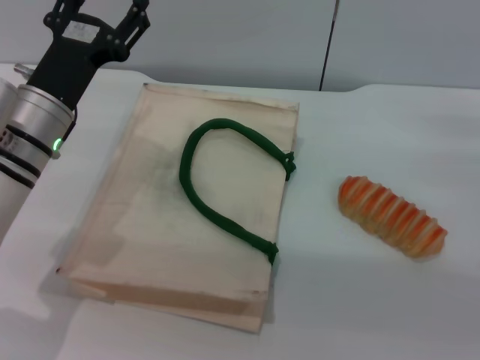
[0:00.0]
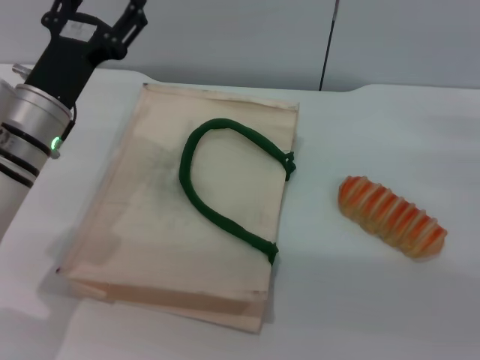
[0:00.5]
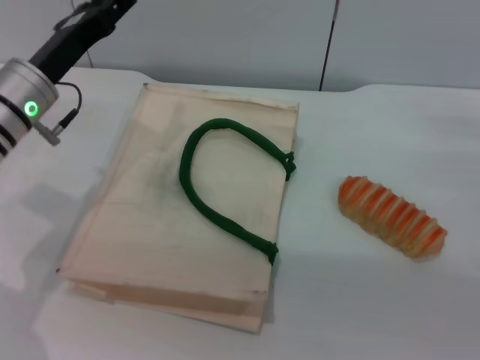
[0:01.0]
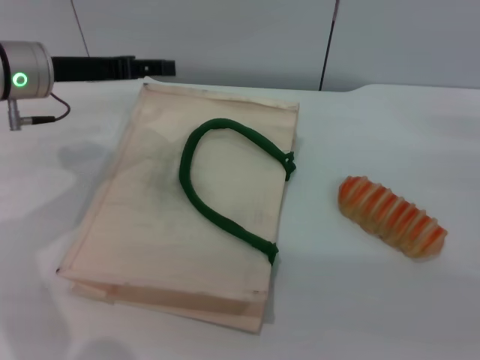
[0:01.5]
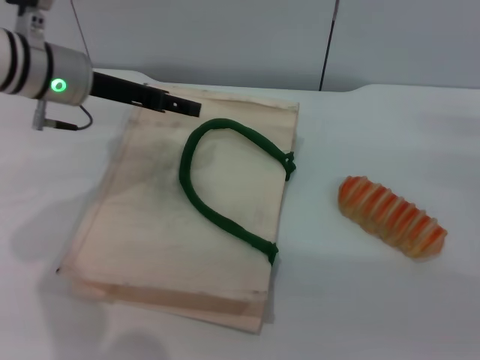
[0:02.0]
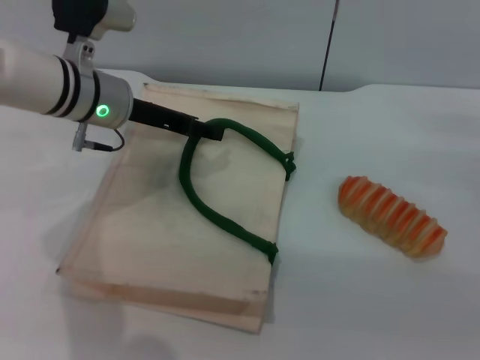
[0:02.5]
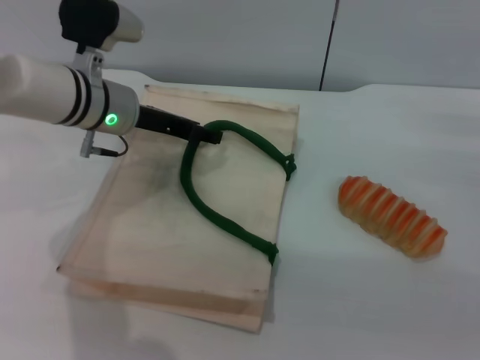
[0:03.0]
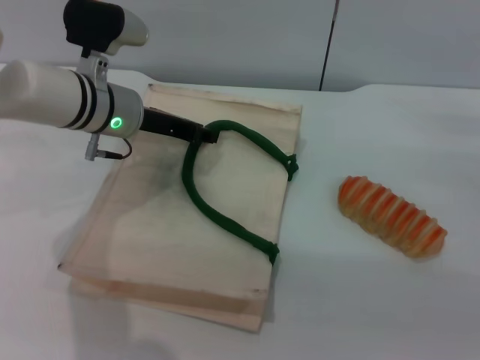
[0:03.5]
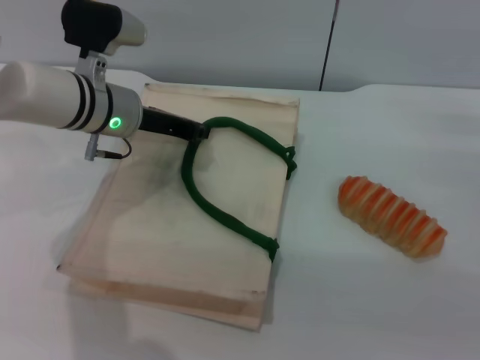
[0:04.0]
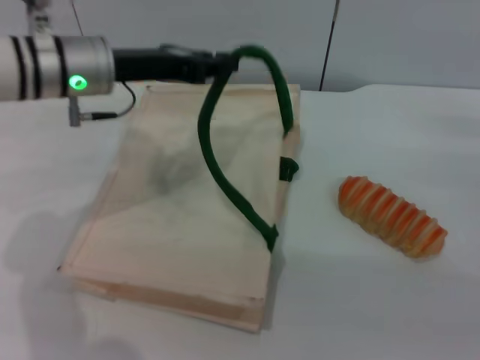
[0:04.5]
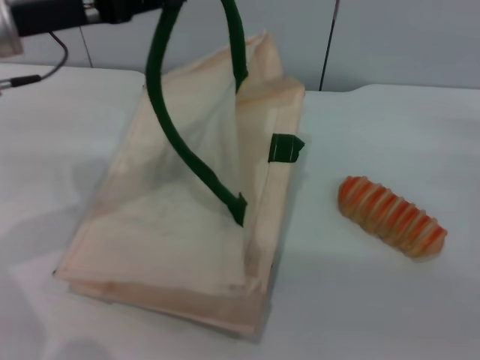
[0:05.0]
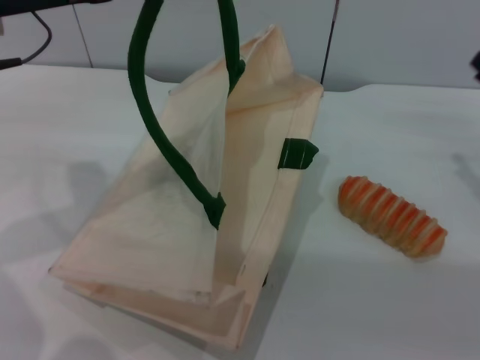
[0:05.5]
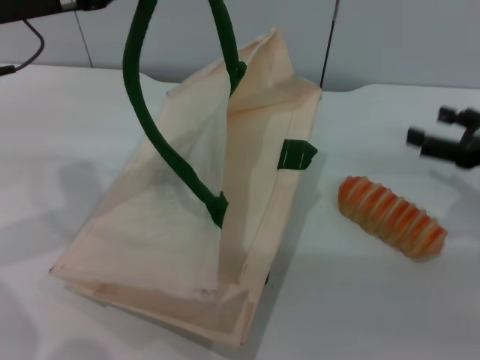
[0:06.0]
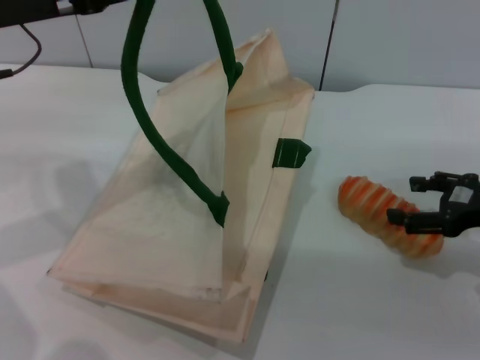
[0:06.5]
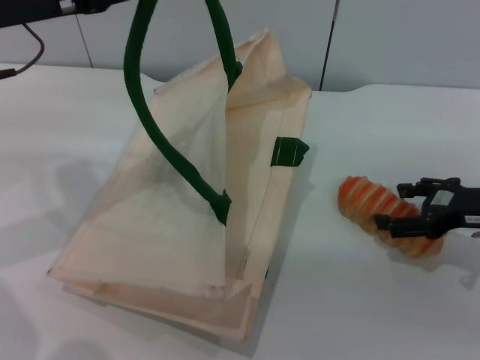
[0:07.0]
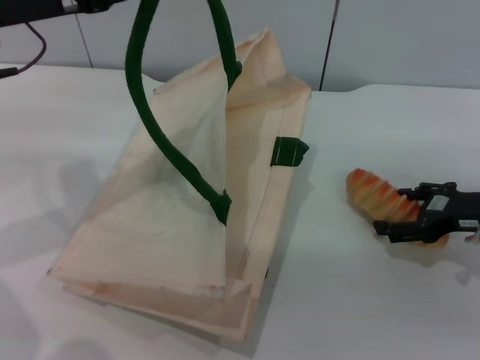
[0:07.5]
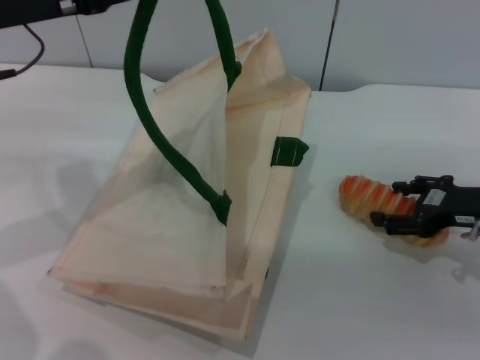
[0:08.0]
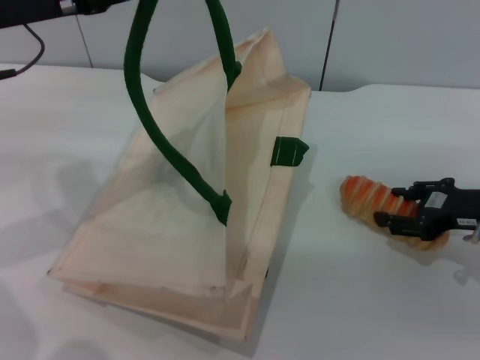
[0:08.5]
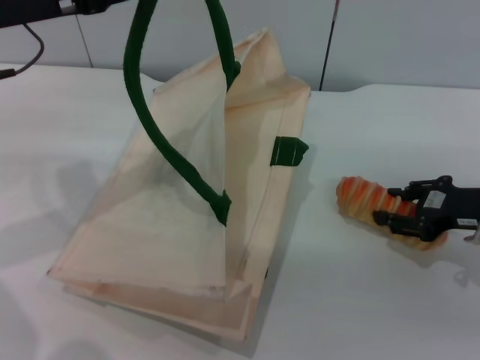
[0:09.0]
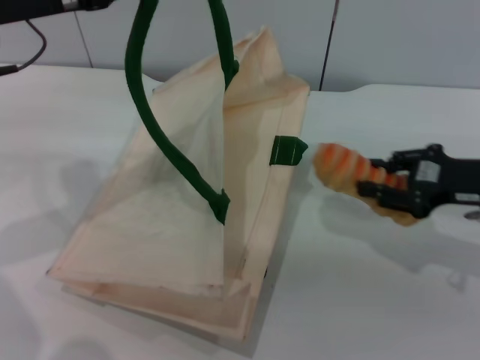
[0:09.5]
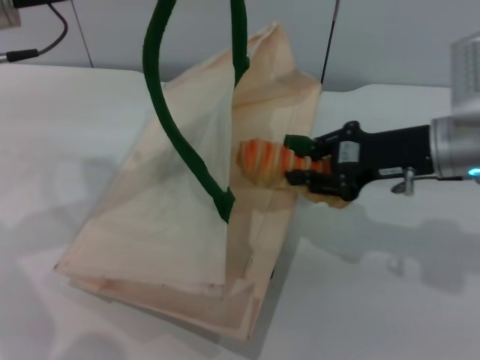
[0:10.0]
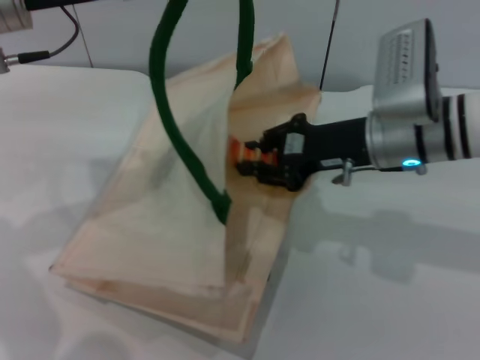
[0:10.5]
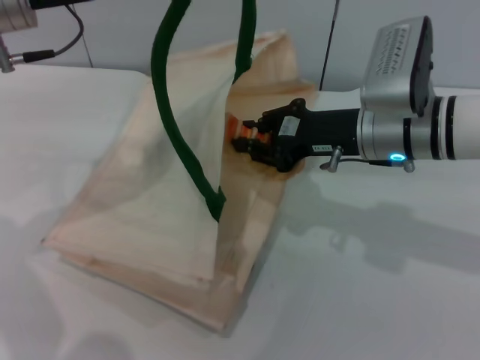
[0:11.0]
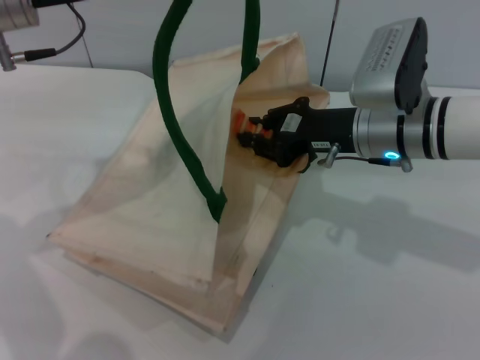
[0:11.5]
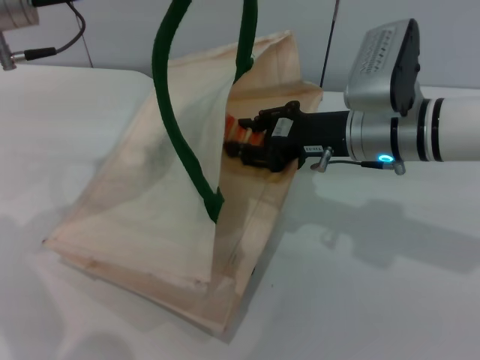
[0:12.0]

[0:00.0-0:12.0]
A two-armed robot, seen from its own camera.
Task of the whole recording: pick up the bread from the table and place it in the white handbag.
Step, 0:00.0 to 0:05.0: Lift the woven bag with the left gripper to open it.
Step, 0:05.5 to 0:09.0: Pick up the bread with the right gripper.
0:00.0 to 0:02.0: The left gripper goes some 10 cm forward and upward.
0:02.0 to 0:04.0: The left gripper moves approximately 5 cm, and closes up.
0:04.0 to 0:06.0: The left gripper moves upward, to the left and backward, about 15 cm.
0:08.0 to 0:10.0: The right gripper shifts some 10 cm to the left and upward, and closes.
0:10.0 to 0:12.0: The right gripper shifts some 5 cm to the left.

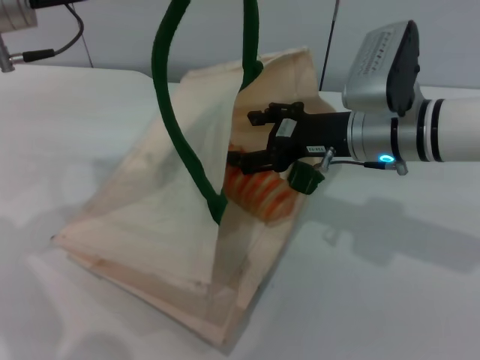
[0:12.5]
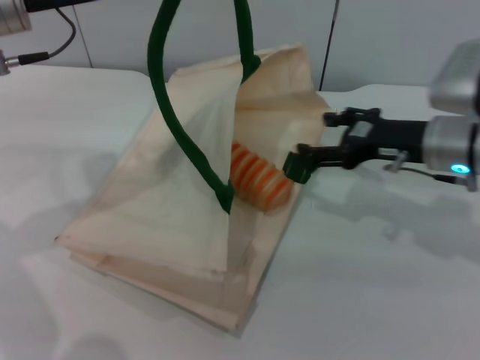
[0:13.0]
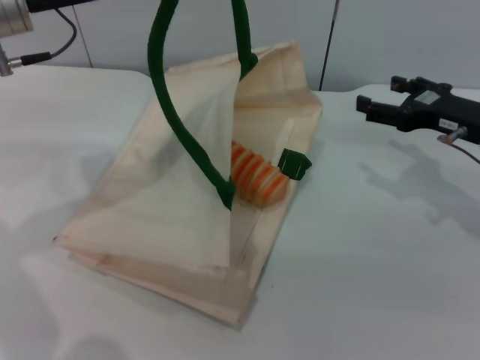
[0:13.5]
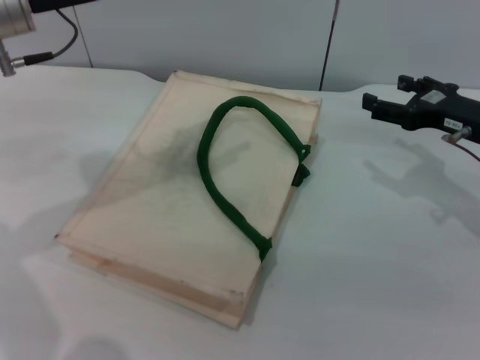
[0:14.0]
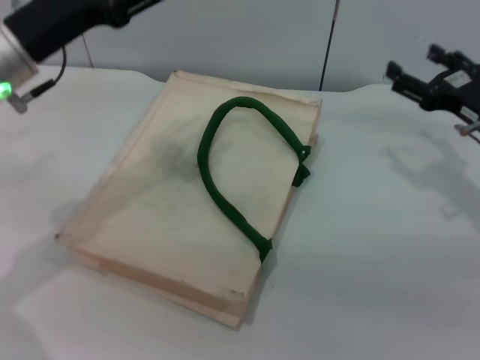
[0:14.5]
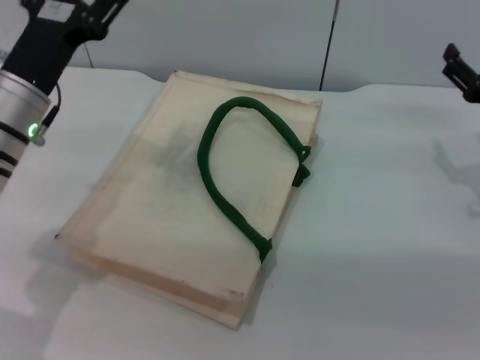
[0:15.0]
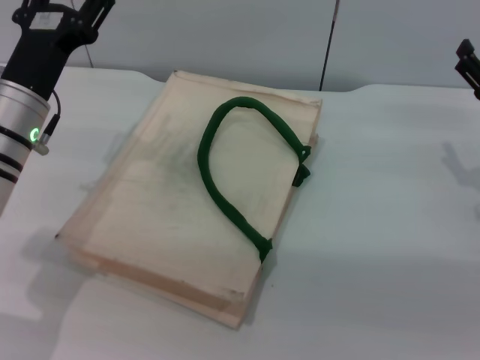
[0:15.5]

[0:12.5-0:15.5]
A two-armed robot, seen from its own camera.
Task of the whole recording: pick up the bread from the table and place it in the white handbag.
0:12.5 to 0:14.0: The right gripper travels to the right by approximately 15 cm.
0:14.0 to 0:15.5: The left gripper shifts about 10 cm downward, and opens up. The right gripper ends up some 5 cm from where it was.

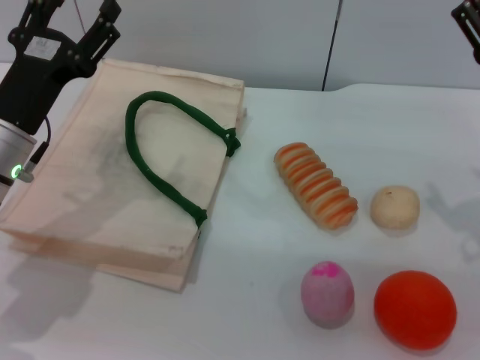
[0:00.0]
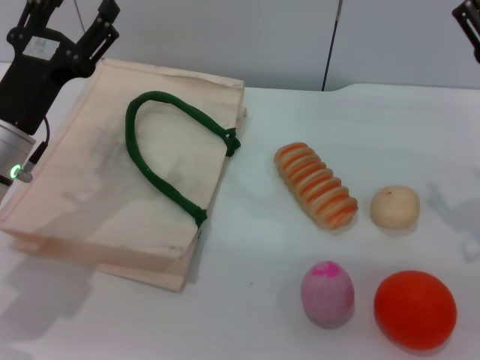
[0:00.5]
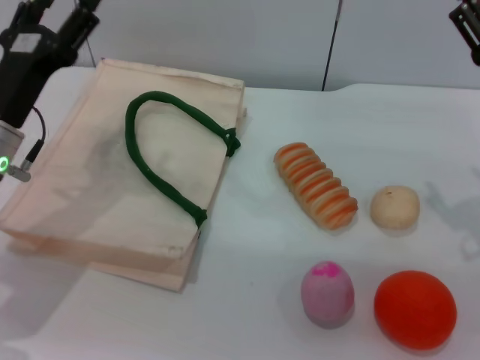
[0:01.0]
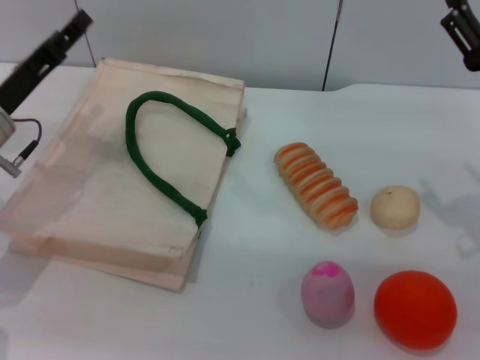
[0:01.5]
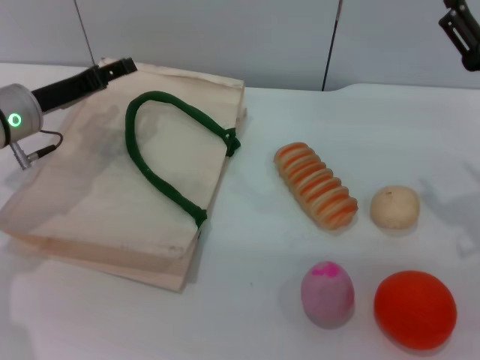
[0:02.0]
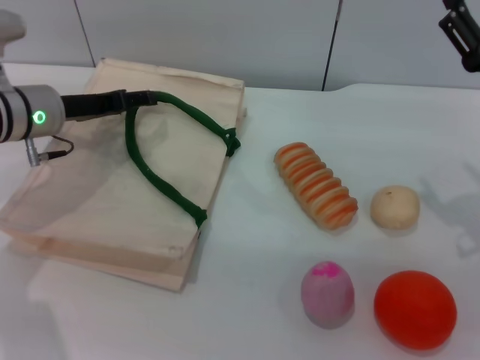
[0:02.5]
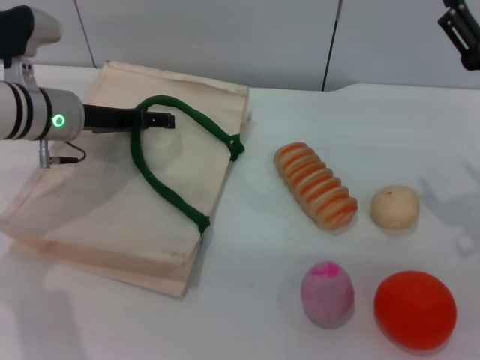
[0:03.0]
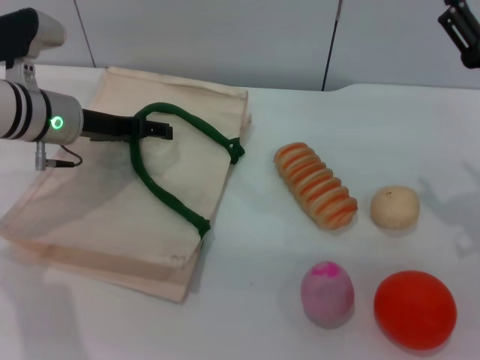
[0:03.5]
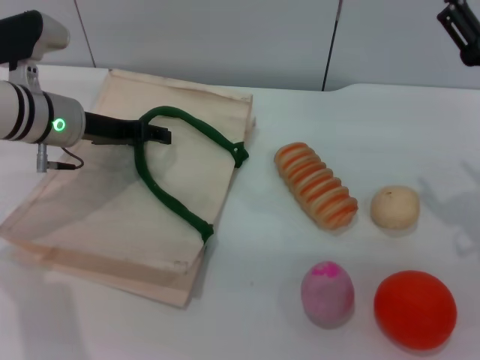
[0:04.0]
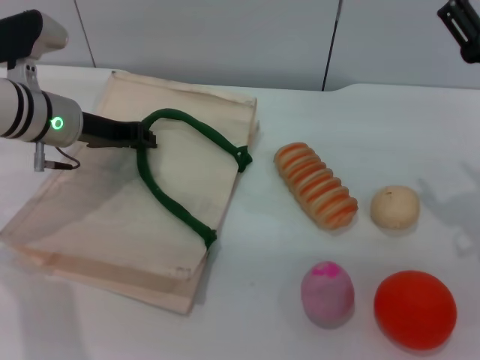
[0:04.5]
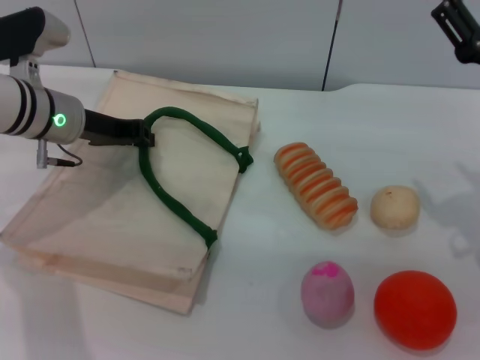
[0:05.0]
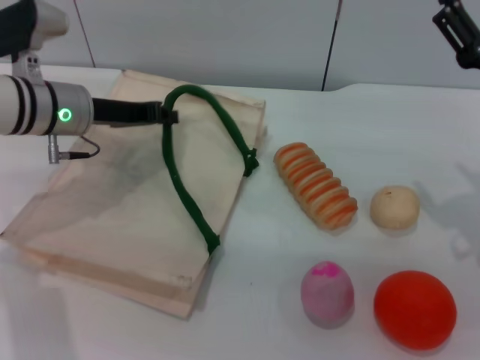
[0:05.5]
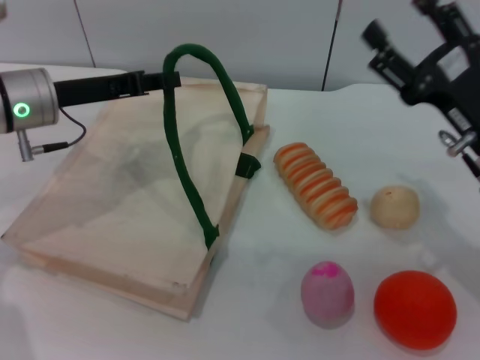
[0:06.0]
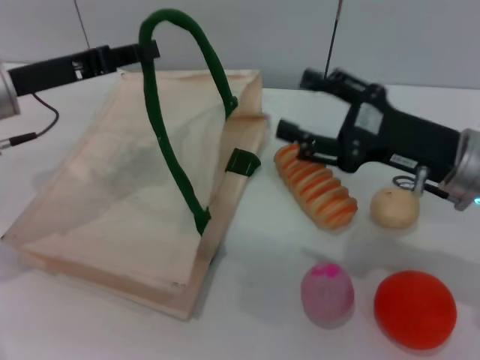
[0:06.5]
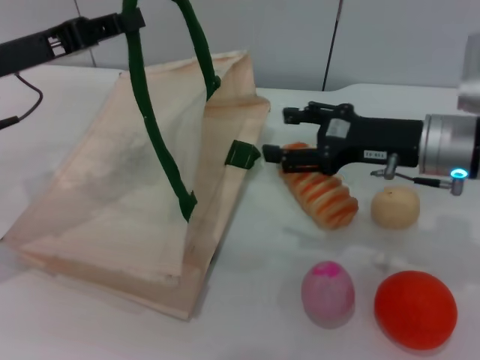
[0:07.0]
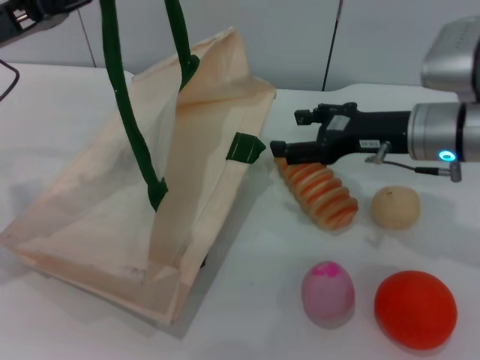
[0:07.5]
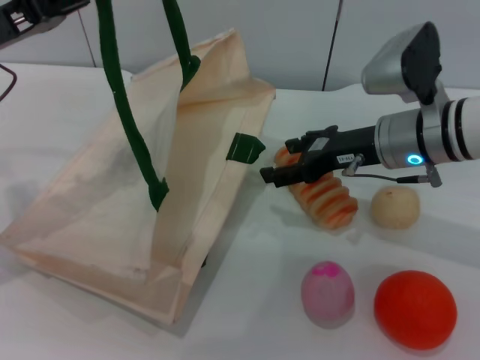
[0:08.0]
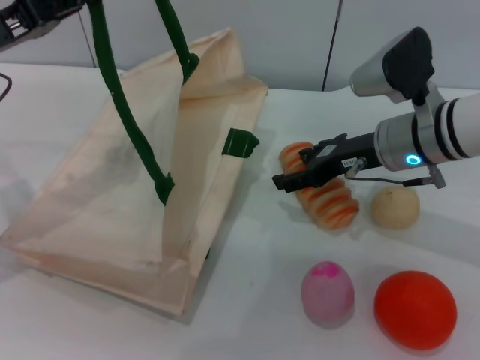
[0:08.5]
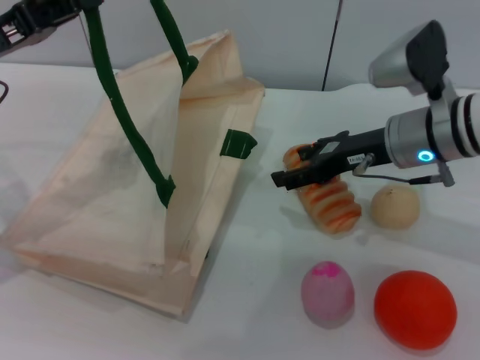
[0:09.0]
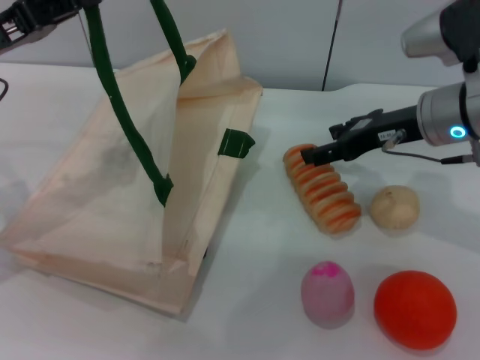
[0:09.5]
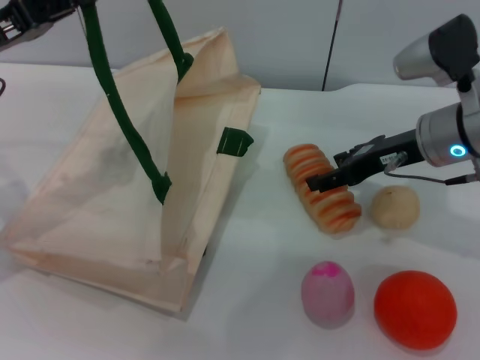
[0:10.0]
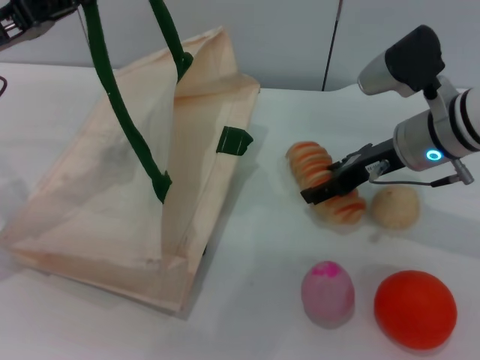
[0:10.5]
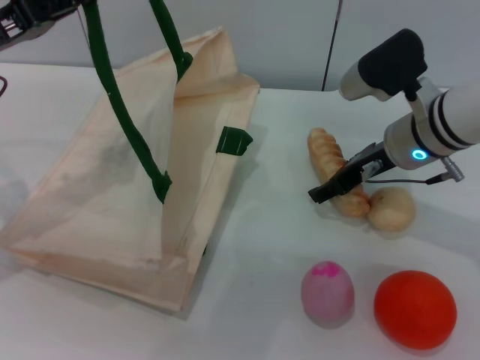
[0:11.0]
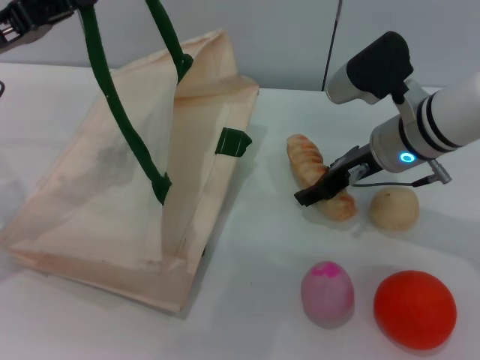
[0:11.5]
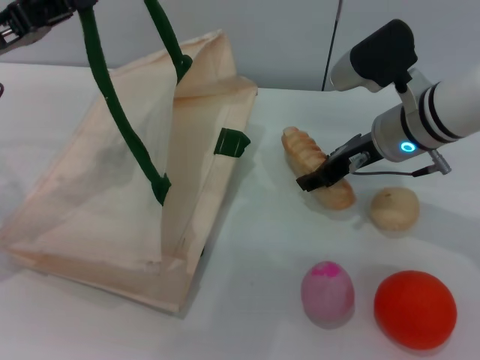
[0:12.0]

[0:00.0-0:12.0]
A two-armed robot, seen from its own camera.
Task of the whole recording: pick up the bread and egg yolk pastry from the table and place it in the white handbag.
Step, 0:00.0 to 0:06.0: Lift the woven bag with the left gripper to open it.
0:00.0 to 0:02.0: The left gripper shifts some 5 cm forward.
0:04.0 to 0:06.0: The left gripper closes its fingers.
0:06.0 to 0:08.0: The left gripper moves roughly 10 cm; the right gripper heads forward and to the left, covering approximately 10 cm.
0:08.0 to 0:10.0: The grippers stay close to where they were, moving slightly.
0:10.0 to 0:12.0: There are only small adjustments of the grippers.
